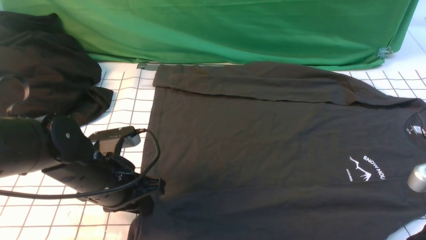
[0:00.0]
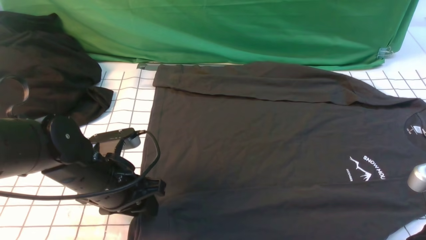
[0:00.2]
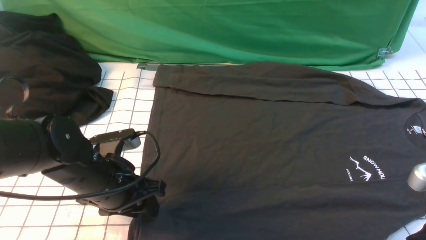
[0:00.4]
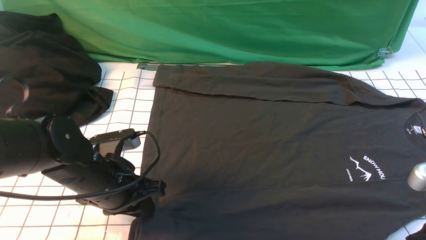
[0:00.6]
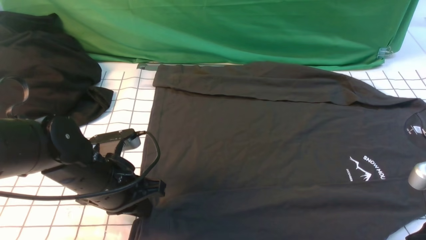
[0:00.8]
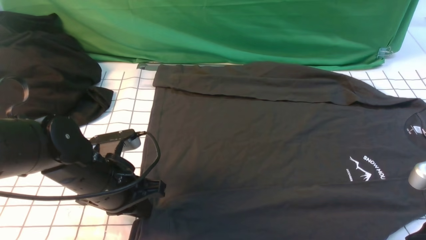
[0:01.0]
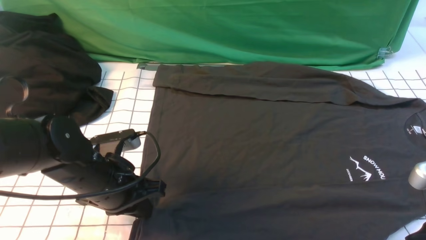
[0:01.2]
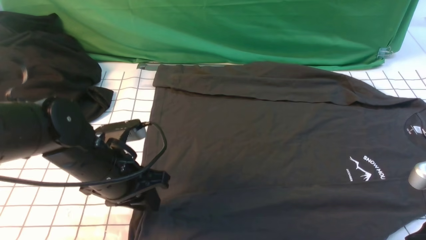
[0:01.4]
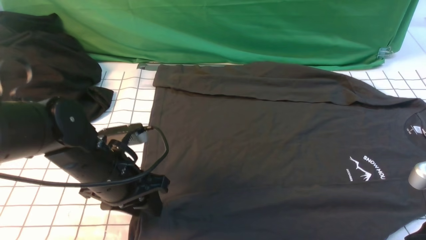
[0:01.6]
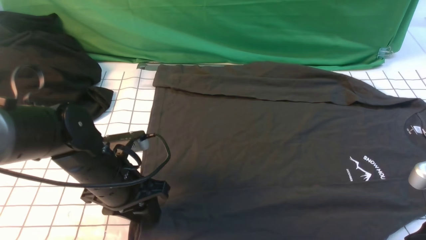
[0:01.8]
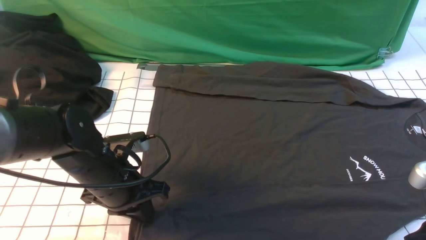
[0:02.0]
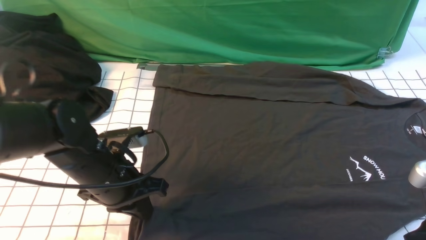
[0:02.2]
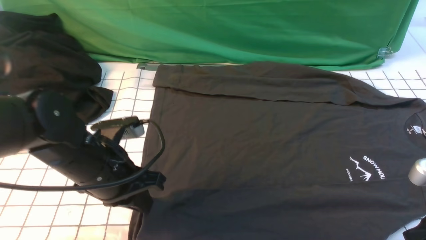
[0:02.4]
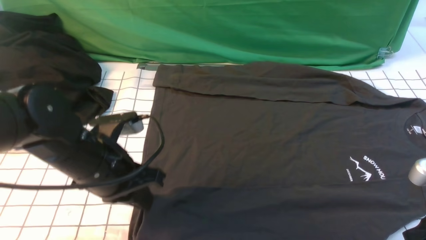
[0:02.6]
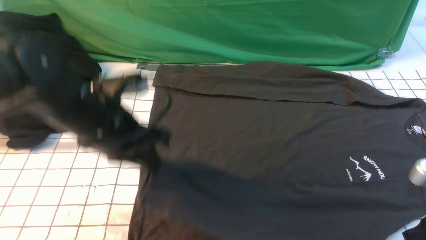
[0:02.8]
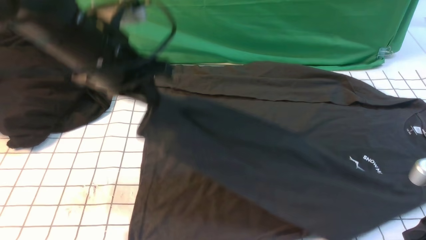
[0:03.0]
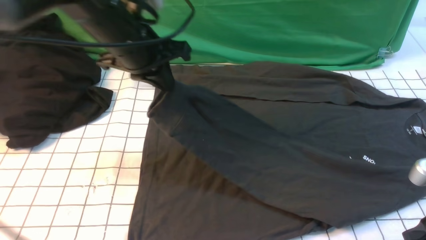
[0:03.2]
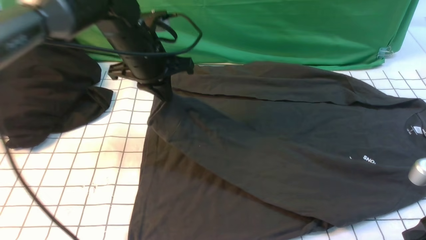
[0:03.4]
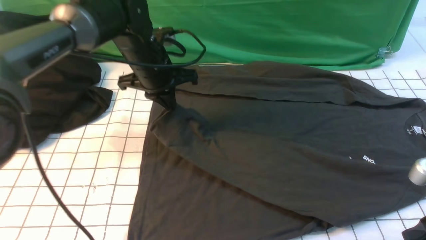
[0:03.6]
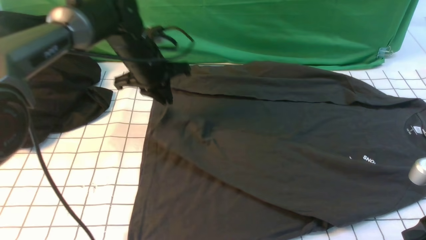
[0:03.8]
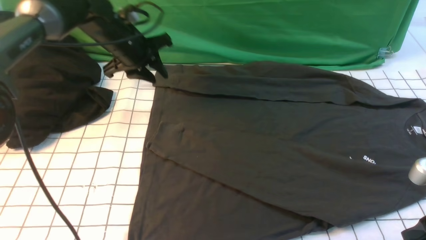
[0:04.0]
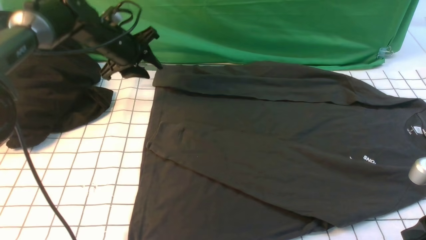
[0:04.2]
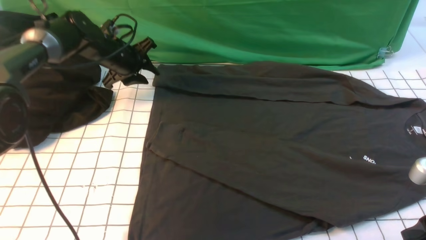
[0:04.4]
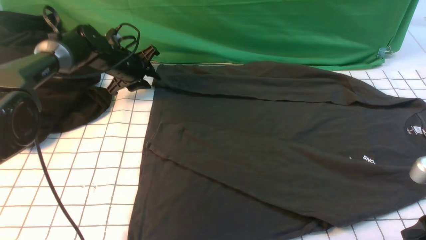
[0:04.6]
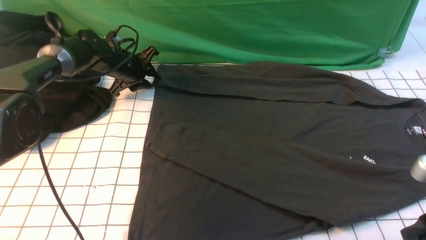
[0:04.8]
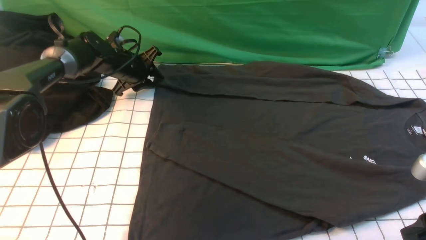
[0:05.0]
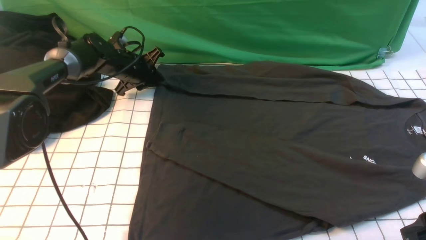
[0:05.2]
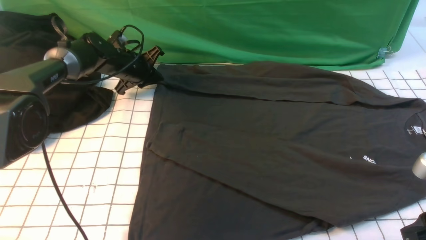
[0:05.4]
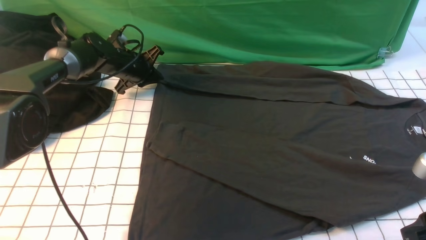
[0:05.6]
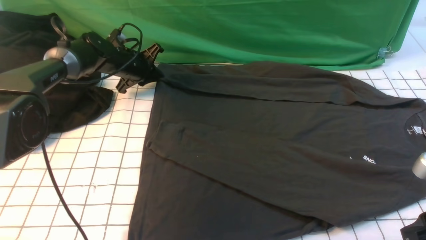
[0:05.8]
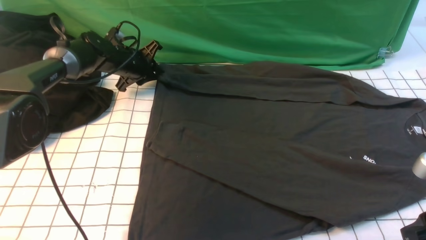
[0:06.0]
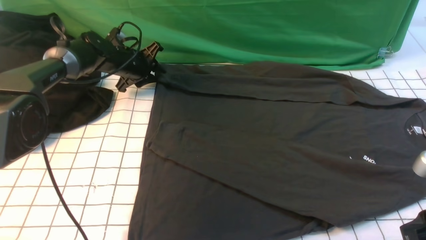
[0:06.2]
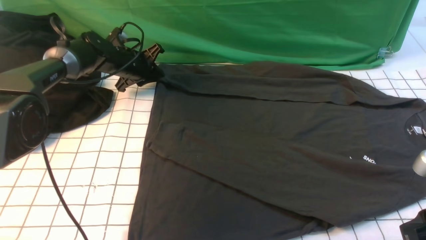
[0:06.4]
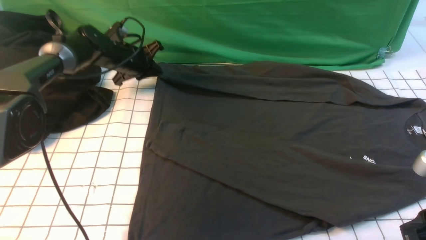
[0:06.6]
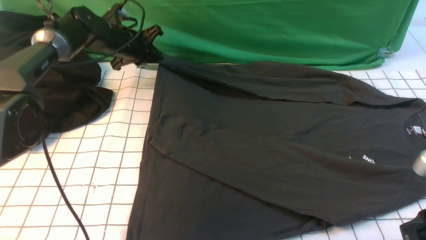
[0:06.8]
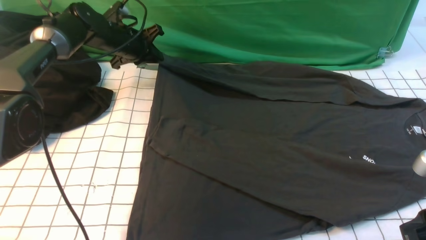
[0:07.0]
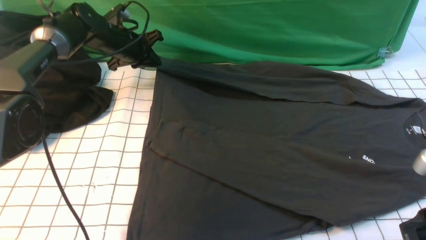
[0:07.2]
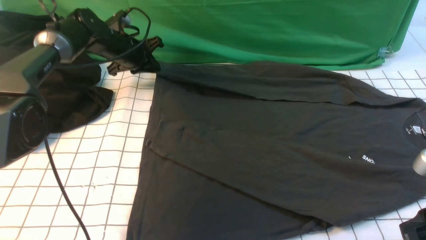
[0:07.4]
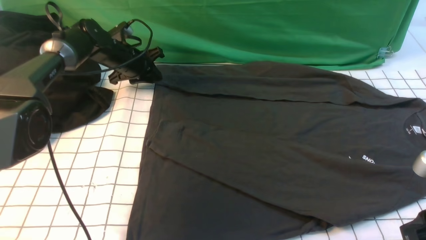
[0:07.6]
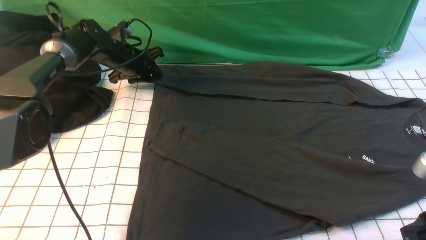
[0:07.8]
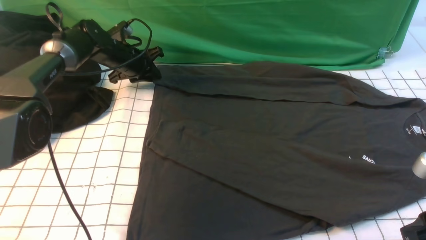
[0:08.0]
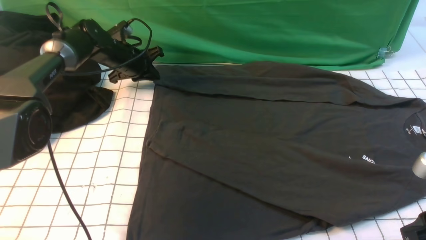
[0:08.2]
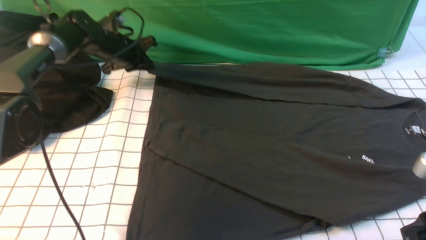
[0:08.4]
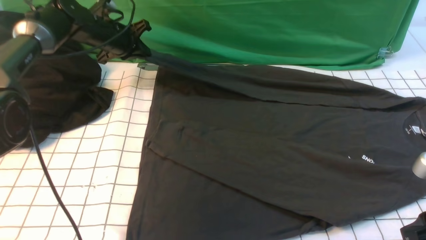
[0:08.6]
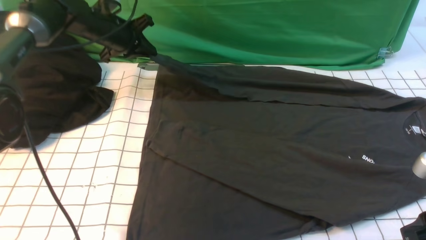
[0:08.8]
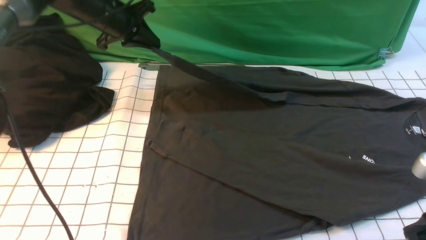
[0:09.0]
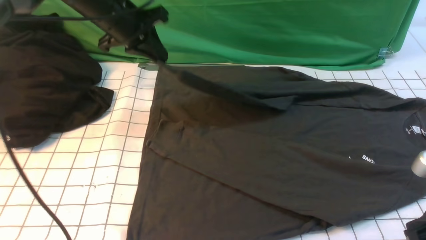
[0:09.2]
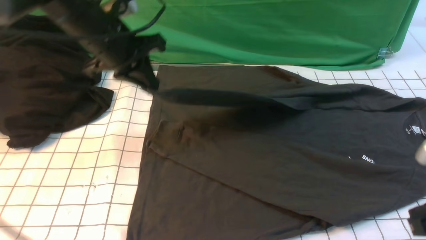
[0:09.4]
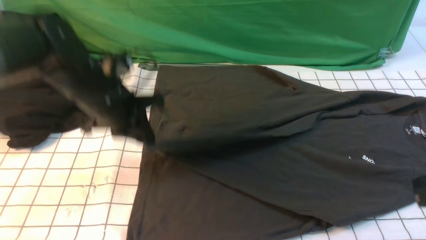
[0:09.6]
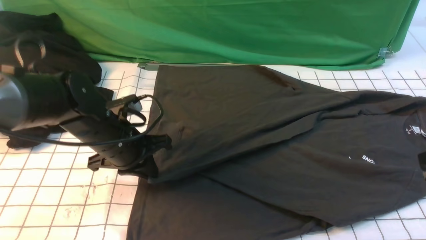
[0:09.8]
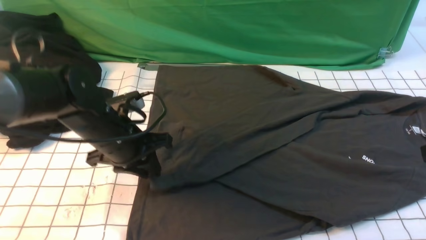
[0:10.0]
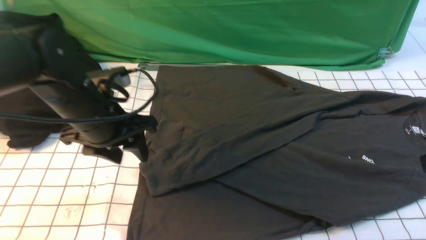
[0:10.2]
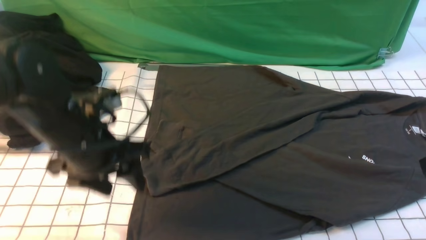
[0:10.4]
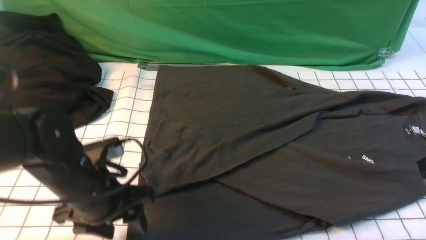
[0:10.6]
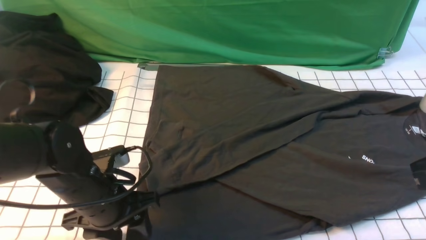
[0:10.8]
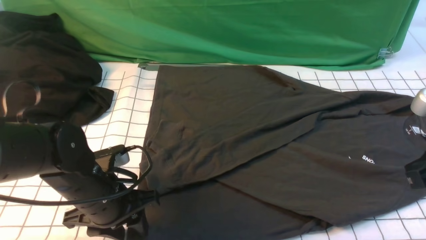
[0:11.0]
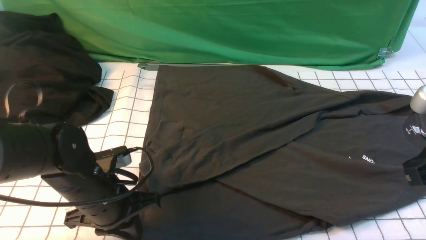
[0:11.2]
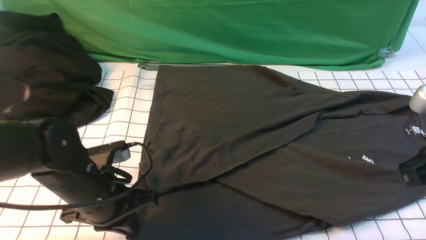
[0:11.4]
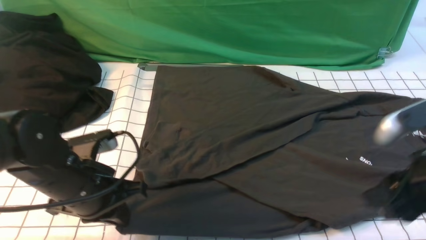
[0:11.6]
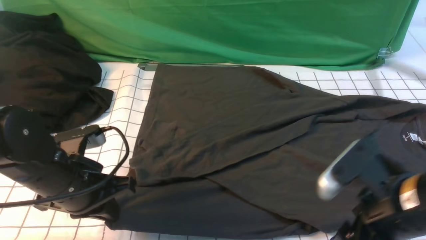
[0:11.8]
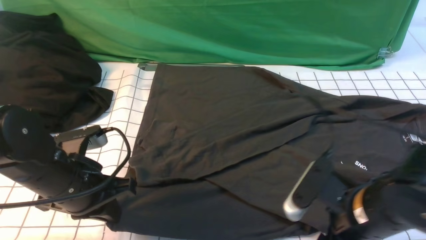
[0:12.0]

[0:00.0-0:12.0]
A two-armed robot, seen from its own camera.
Step, 0:00.0 to 0:02.0: use the left arm to clamp the cuff closest to it.
Step, 0:02.2 to 0:03.8: use the left arm to drag and place the cuff at the centered position on the left edge of the fabric.
Step, 0:04.0 to 0:08.0: use the left arm to clamp the cuff farthest from it.
Step, 0:08.2 to 0:10.0: use the left arm to drag and drop the cuff onto the cuff closest to the left arm.
0:00.0 to 0:01.6: The left gripper closes and opens again.
0:01.6 to 0:03.0: The left gripper shifts about 15 cm upward and forward, and closes up.
0:03.0 to 0:04.4: The left gripper moves forward and downward, roughly 25 cm, and opens.
0:04.4 to 0:06.0: The grippers stay close to where they were, moving slightly.
0:06.0 to 0:07.6: The left gripper closes, then reopens.
0:07.6 to 0:09.0: The left gripper moves upward and backward, about 15 cm, and closes up.
0:09.0 to 0:10.4: The right gripper goes roughly 5 cm upward. The left gripper heads backward, covering approximately 25 cm, and opens its fingers.
0:10.4 to 0:12.0: The right gripper heads downward and to the left, covering some 15 cm, and opens, while the left gripper closes.

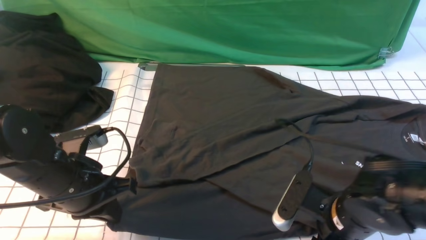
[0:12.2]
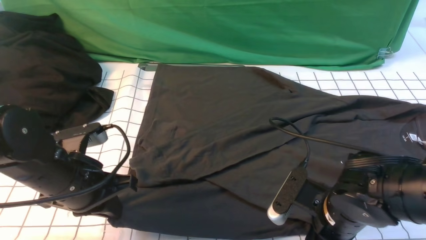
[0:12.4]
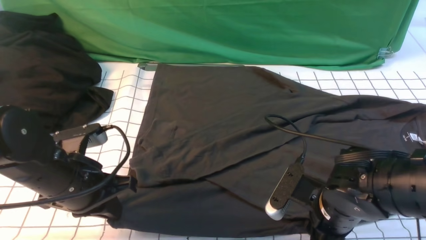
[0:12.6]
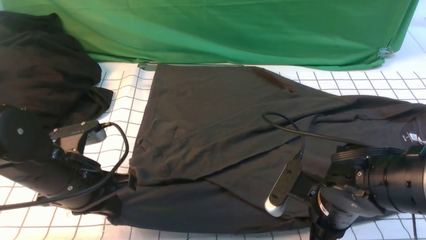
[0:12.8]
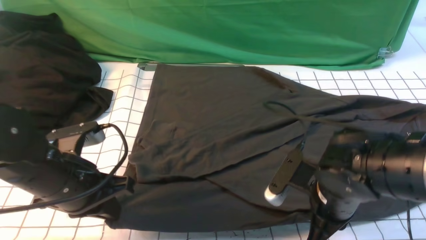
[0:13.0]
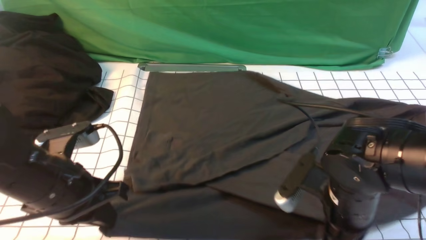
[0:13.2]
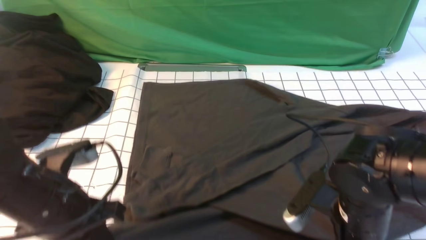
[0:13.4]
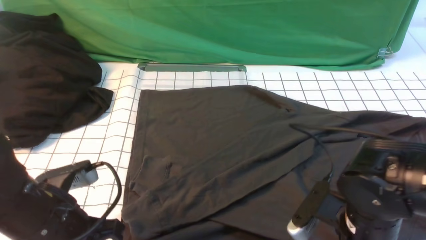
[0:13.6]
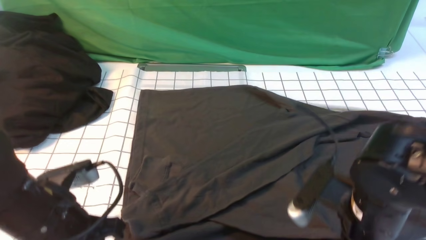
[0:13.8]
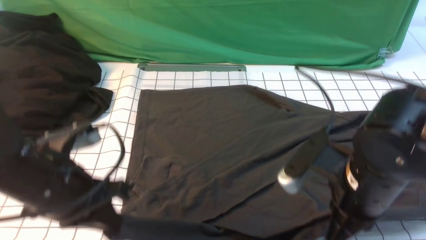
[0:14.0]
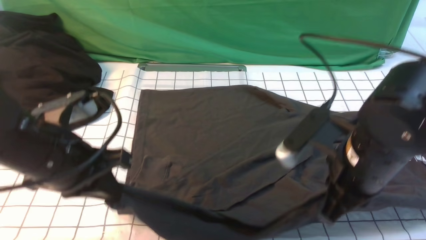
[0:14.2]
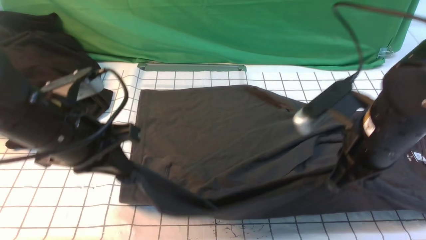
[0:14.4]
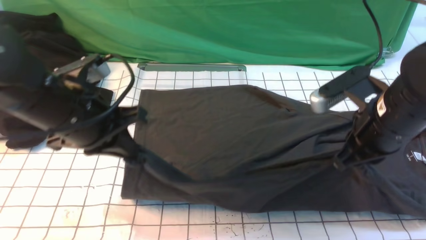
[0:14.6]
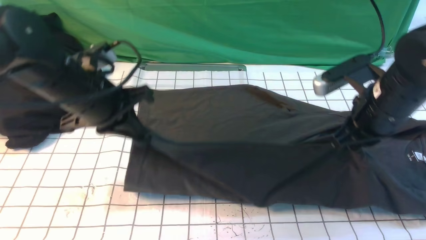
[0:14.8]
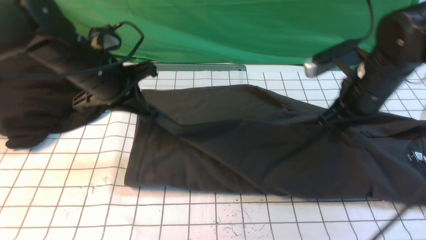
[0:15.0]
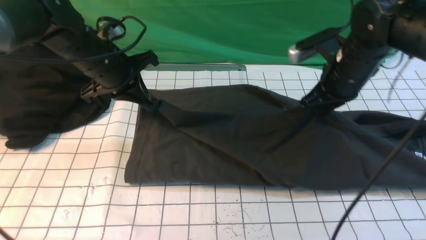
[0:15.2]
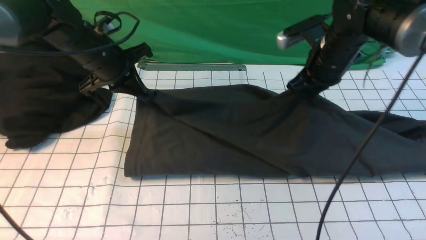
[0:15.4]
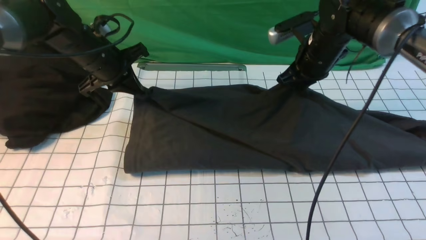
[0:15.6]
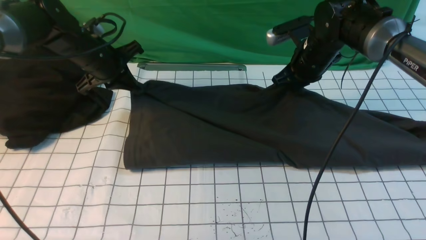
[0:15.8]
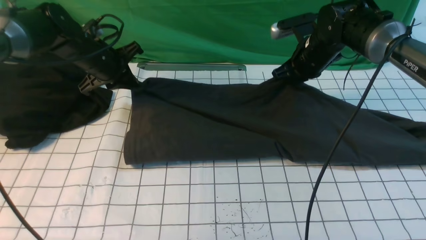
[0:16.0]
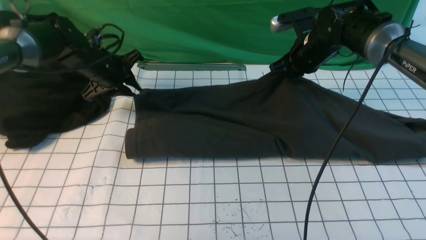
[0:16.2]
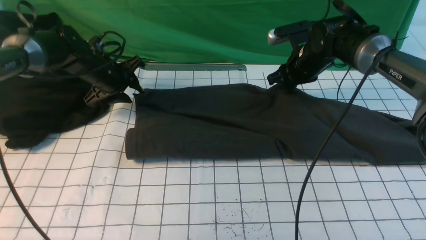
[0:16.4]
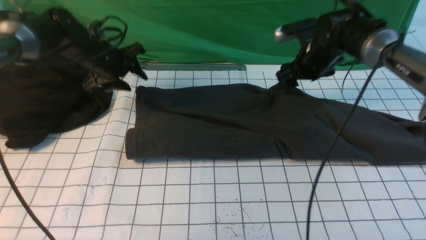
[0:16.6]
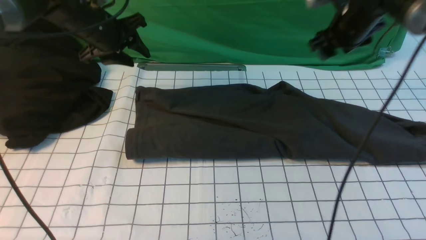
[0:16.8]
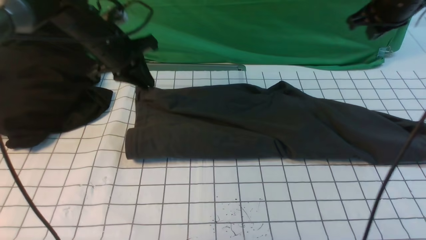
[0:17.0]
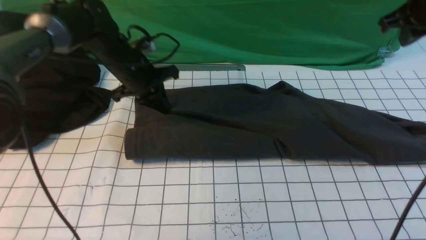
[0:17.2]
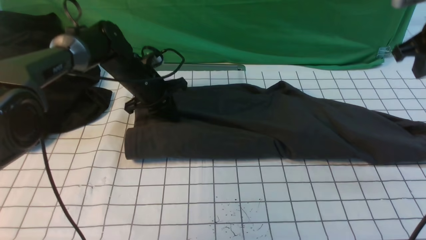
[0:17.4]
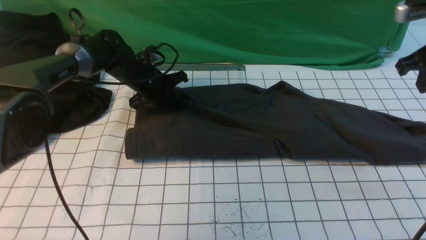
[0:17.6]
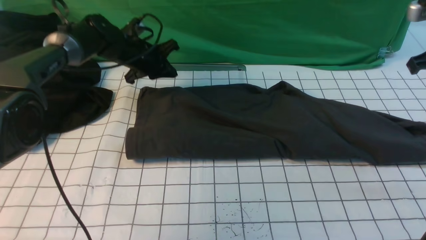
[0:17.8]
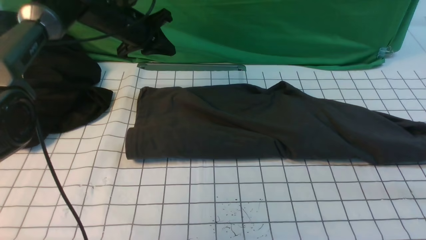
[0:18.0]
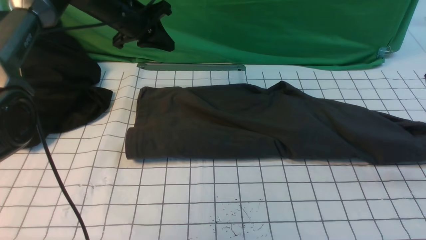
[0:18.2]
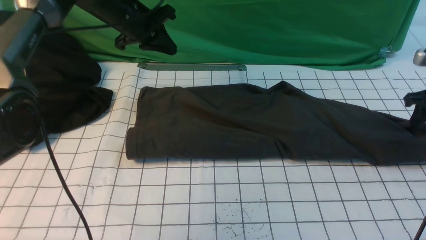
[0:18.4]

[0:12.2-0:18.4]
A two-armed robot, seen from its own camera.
Step, 0:12.8 to 0:16.4: use both arms to drag the lower edge of the fabric forward and fold it over the upper edge.
0:12.2 to 0:13.8: The left gripper heads backward, covering approximately 5 cm, while the right gripper moves upward, approximately 5 cm, and closes.
0:13.8 to 0:15.4: The two grippers go some 25 cm forward.
0:15.4 to 0:16.8: The right gripper moves to the right and forward, roughly 10 cm, and opens its fingers, while the left gripper opens.
0:16.8 to 0:18.4: The left gripper reaches some 10 cm downward, then returns, and closes. Meanwhile the right gripper goes some 20 cm to the right, backward and downward, and closes and opens again.
